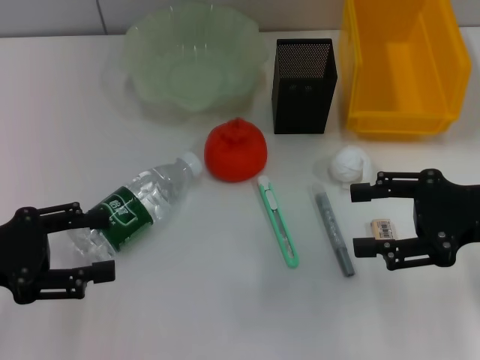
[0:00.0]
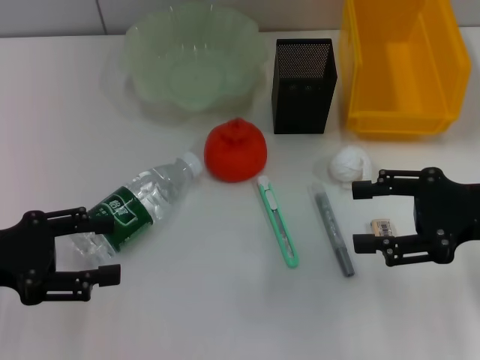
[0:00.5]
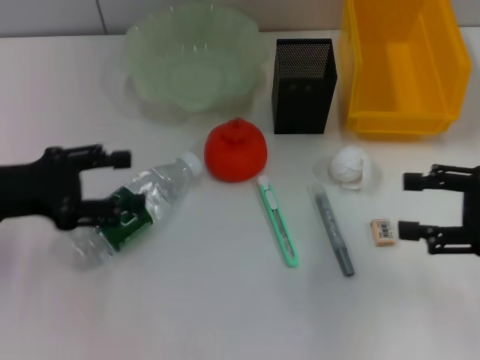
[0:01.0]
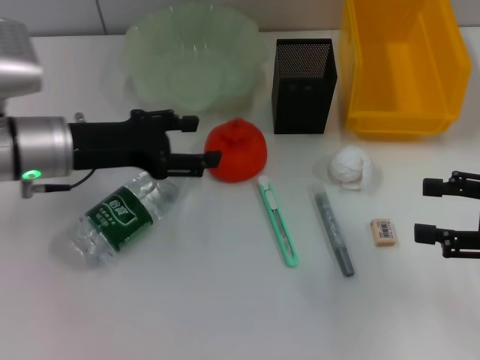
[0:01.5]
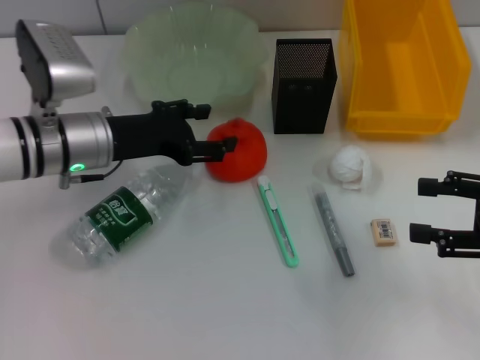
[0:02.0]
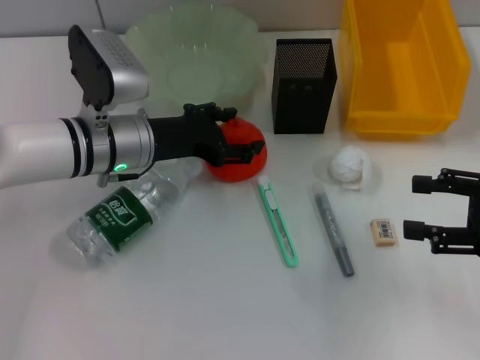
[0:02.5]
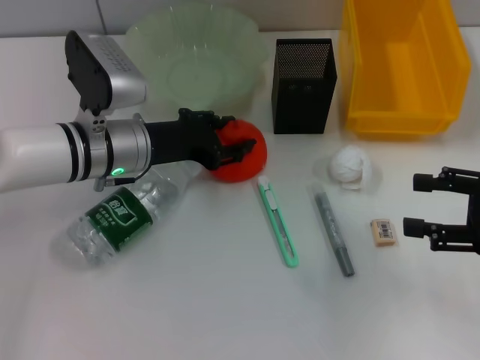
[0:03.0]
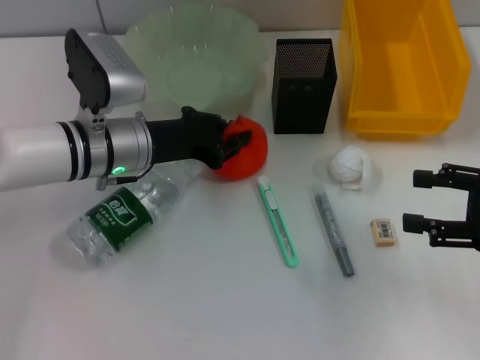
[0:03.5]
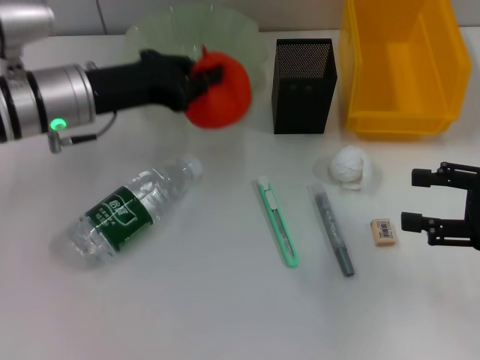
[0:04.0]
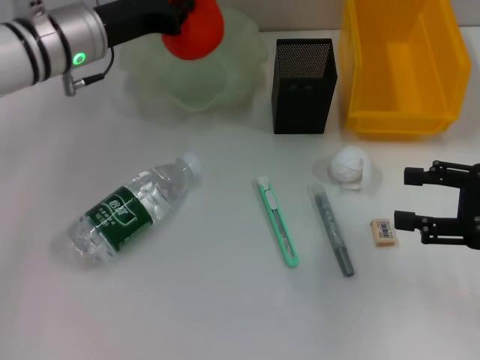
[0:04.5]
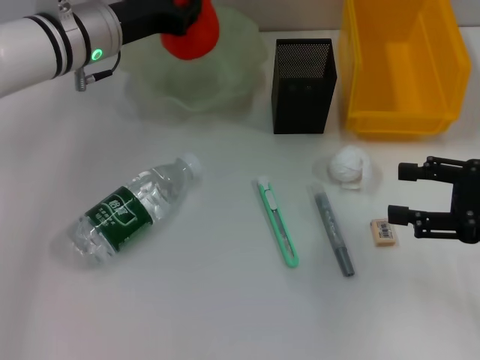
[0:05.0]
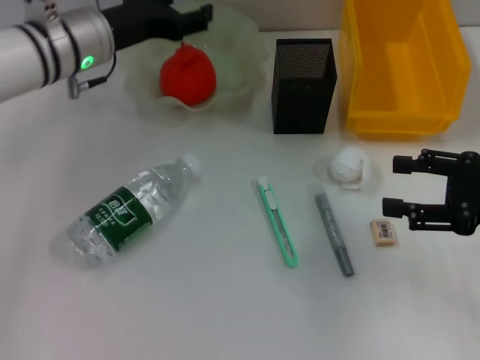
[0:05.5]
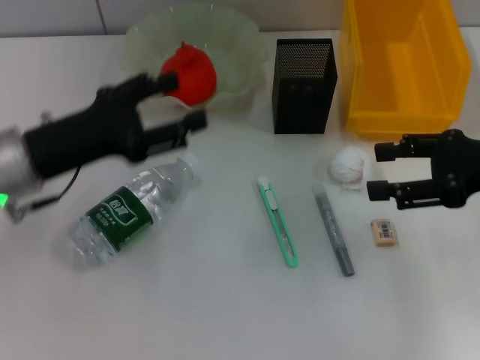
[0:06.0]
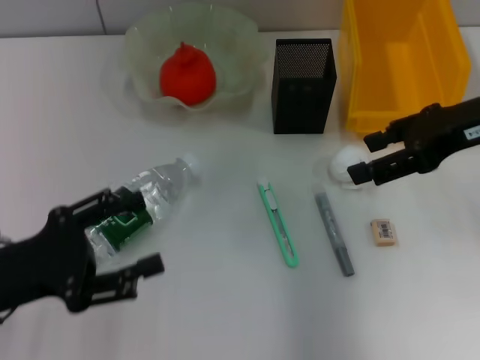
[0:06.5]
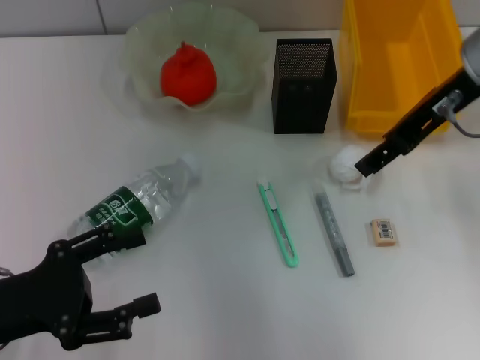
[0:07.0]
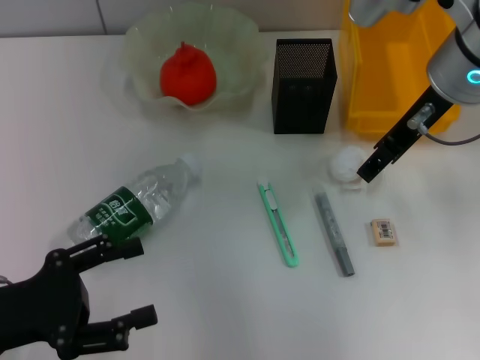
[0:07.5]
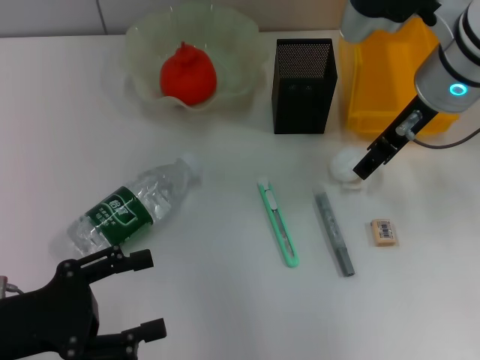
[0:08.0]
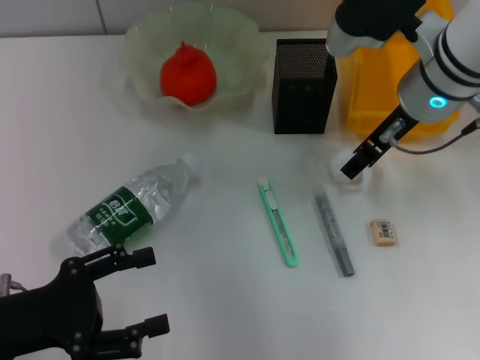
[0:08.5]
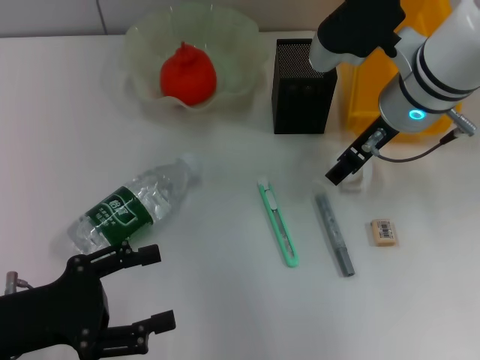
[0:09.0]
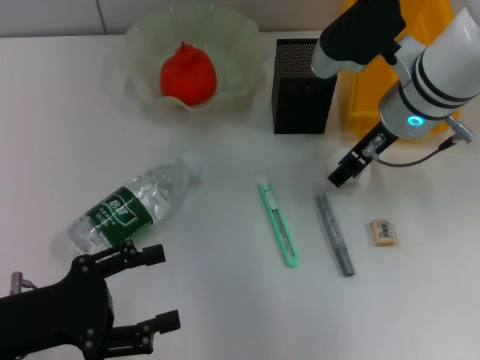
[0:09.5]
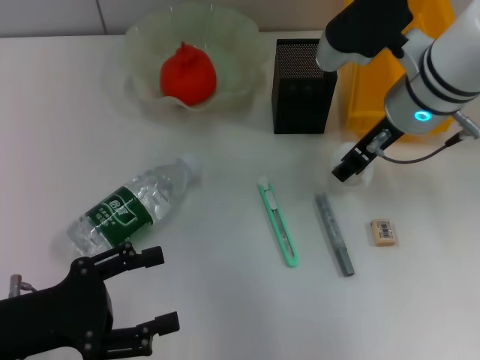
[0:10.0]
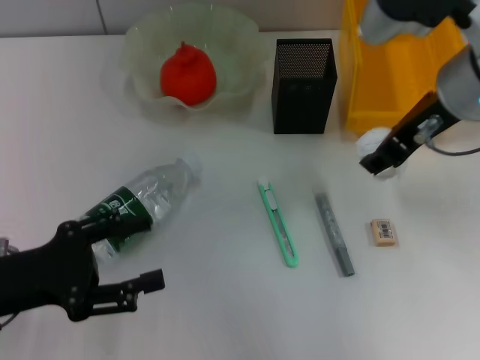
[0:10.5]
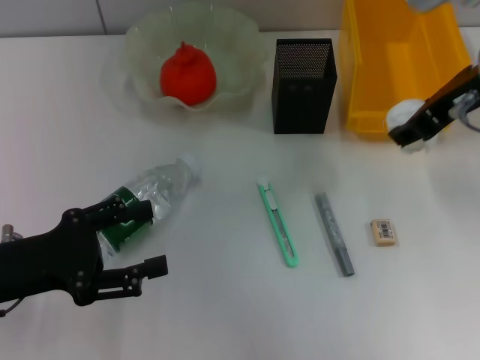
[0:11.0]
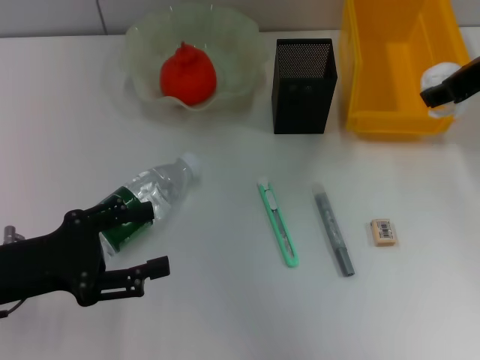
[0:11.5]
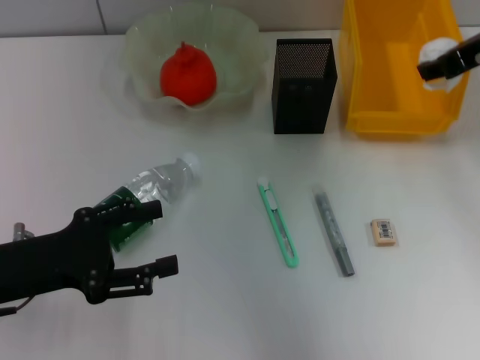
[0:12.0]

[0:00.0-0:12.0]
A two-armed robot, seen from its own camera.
Step, 0.0 to 3.0 s: Grab the orange with the left hand.
Step, 3.5 to 5.0 s: Place the orange into the fruit bowl with the left hand.
Step, 5.5 to 9.5 s: Grab the paper ball with the right hand.
0.0 to 2.0 s: The left gripper goes approximately 20 cm to the right and forward, while the right gripper heads to the right, covering some 5 cm.
2.0 to 4.0 s: The left gripper closes its fingers.
4.0 to 6.0 s: The right gripper shifts by roughly 5 cm, while the left gripper shifts roughly 10 cm backward, and opens its fingers.
6.0 to 8.0 s: The right gripper shifts approximately 15 cm to the left and forward; the left gripper goes approximately 10 cm backward.
8.0 to 10.0 s: The grippers stay close to where they were, moving slightly.
10.0 to 12.0 s: The right gripper is displaced to the right and upward by some 10 cm.

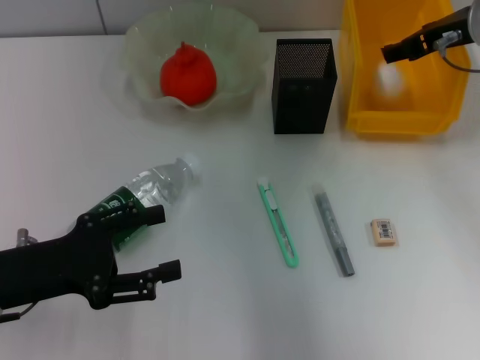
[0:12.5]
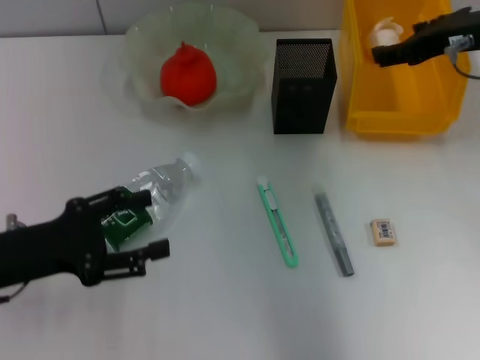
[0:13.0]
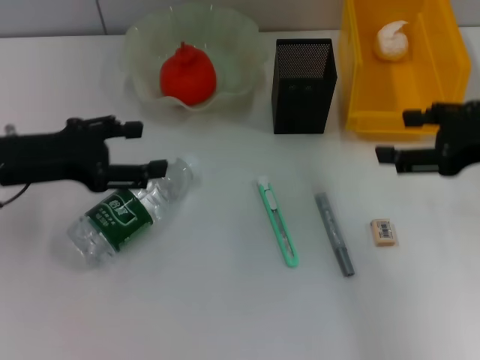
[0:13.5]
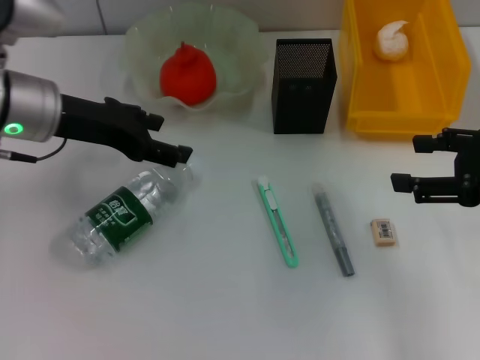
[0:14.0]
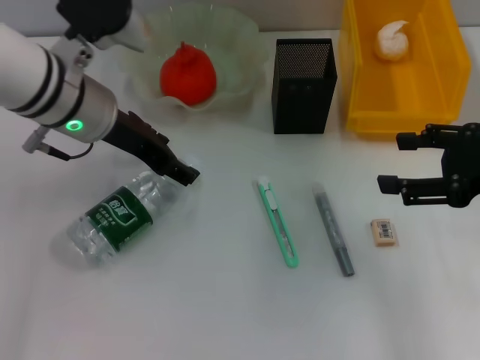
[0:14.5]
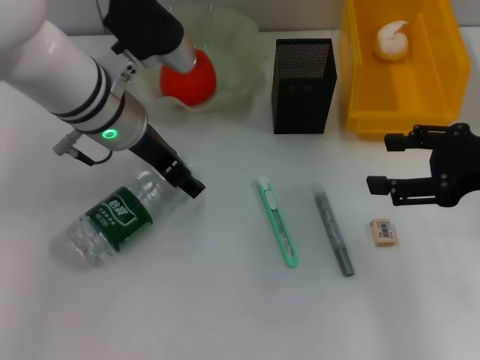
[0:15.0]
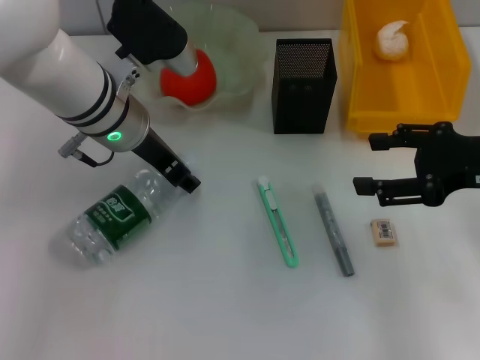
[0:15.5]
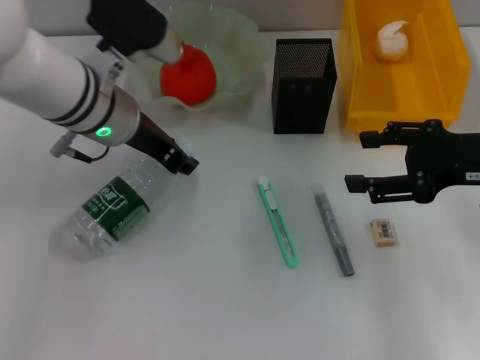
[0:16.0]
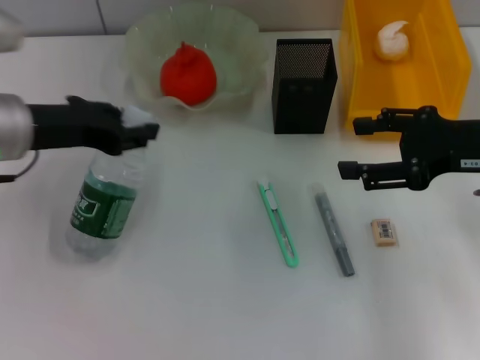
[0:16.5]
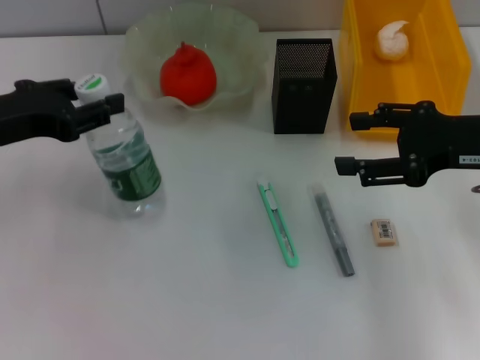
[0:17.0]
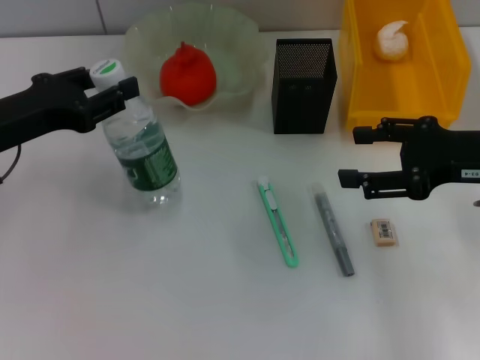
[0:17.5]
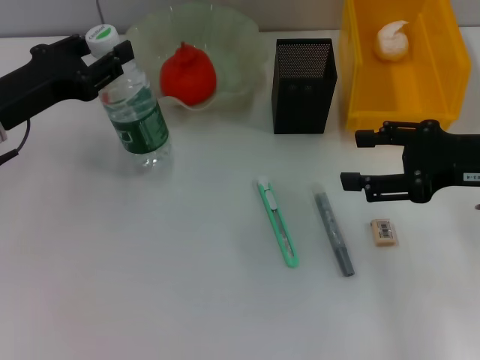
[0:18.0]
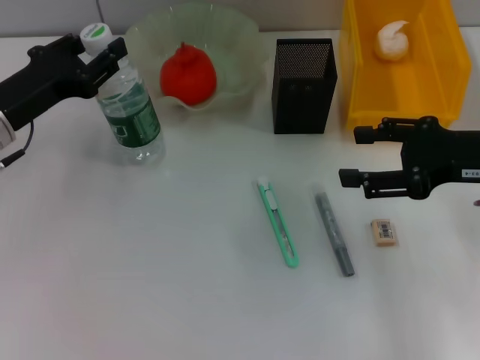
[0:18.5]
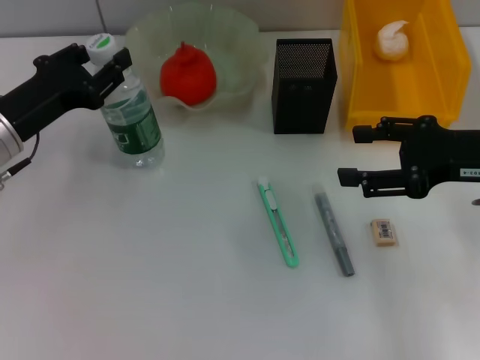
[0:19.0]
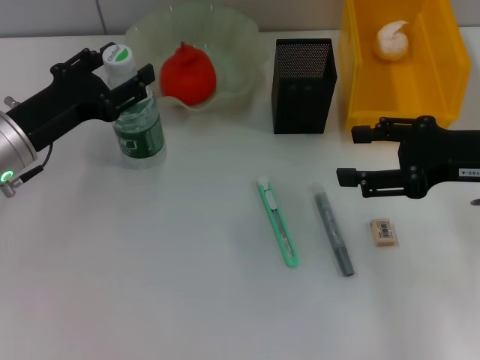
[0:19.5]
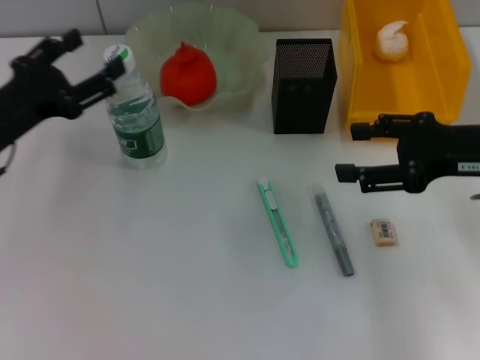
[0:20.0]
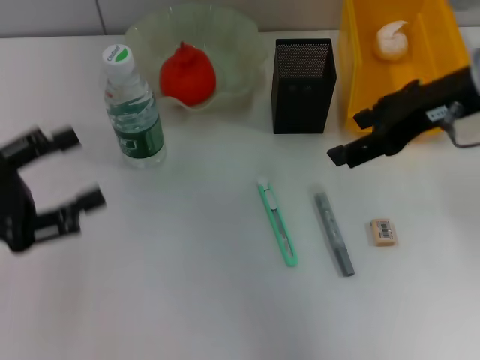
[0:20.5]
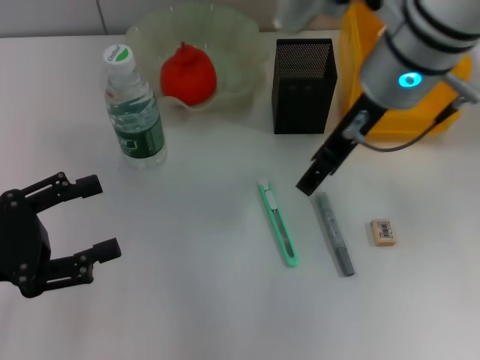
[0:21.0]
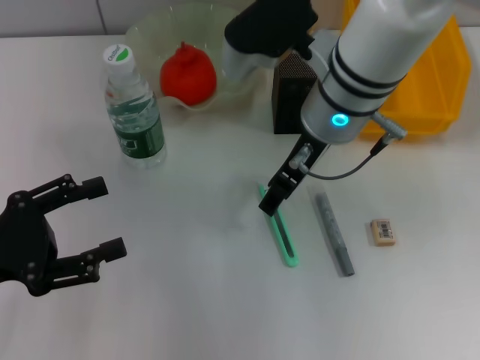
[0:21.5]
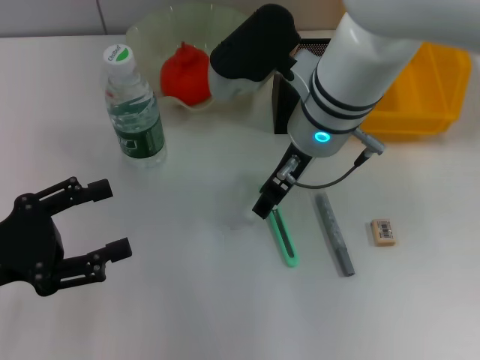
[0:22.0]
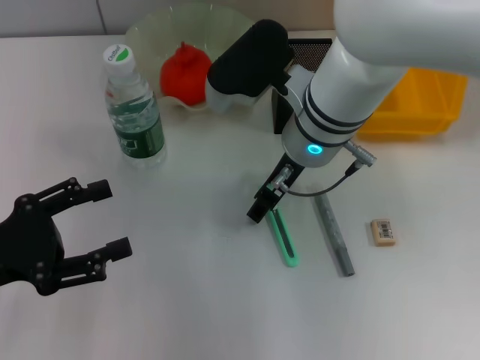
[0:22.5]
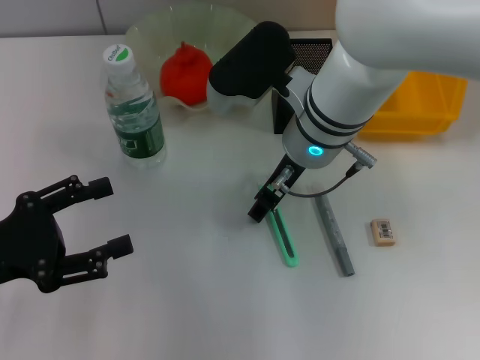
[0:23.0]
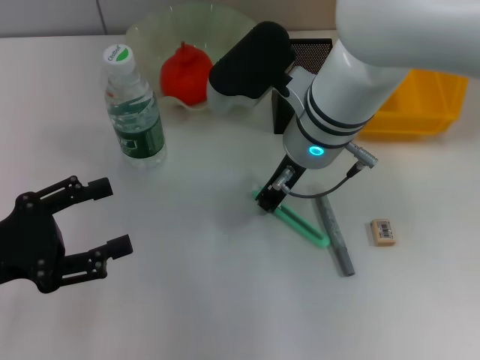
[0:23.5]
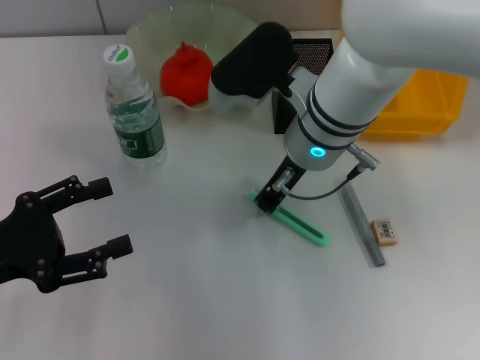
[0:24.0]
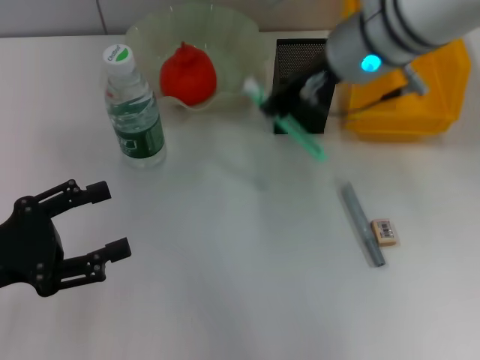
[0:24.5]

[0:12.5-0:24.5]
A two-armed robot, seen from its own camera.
Step, 13.0 to 15.5 s: Grab the water bottle with the left hand.
Step, 16.0 to 19.5 s: Place the water bottle on the table with the left hand.
Step, 20.0 to 23.5 s: Grab the blue utility knife with the right hand.
12.5 to 14.5 s: The right gripper goes approximately 15 cm backward and to the right. The left gripper heads forward, to the right and upward, covering approximately 20 cm.
14.5 to 16.5 s: The left gripper moves to the left, about 5 cm, and closes its fingers.
16.5 to 18.5 s: The left gripper shifts about 5 cm downward and to the left.
18.5 to 20.5 s: The left gripper moves backward and to the left, roughly 10 cm, and opens its fingers; the right gripper is displaced upward and to the left by about 10 cm.
20.5 to 22.5 s: The right gripper is displaced to the left and downward by roughly 20 cm.
22.5 to 24.5 s: The right gripper goes some 10 cm upward, and closes.

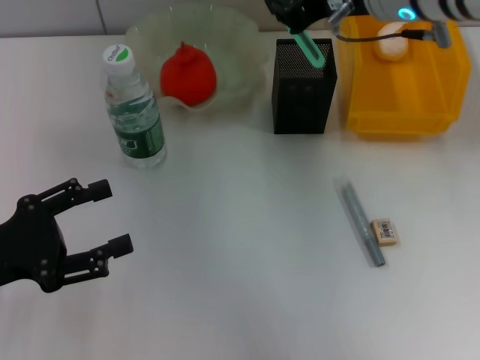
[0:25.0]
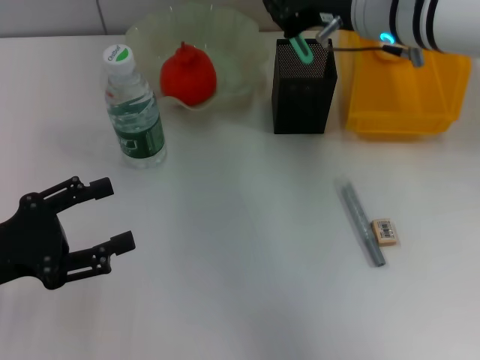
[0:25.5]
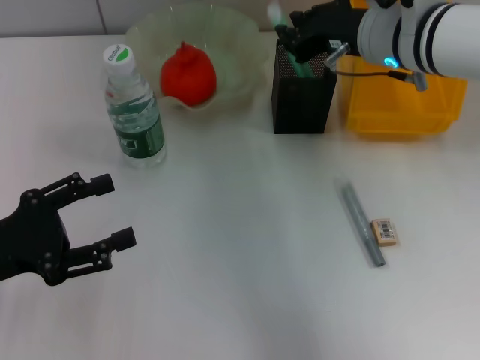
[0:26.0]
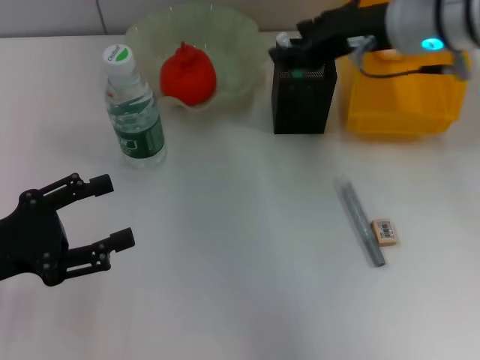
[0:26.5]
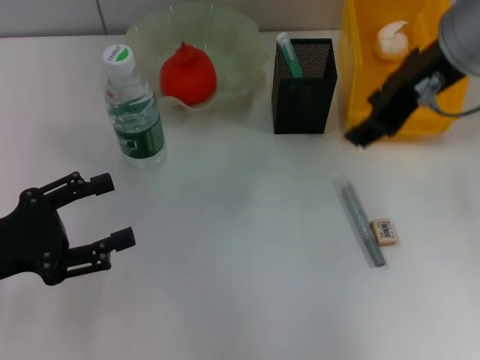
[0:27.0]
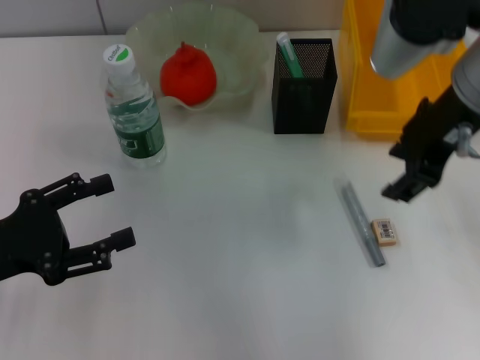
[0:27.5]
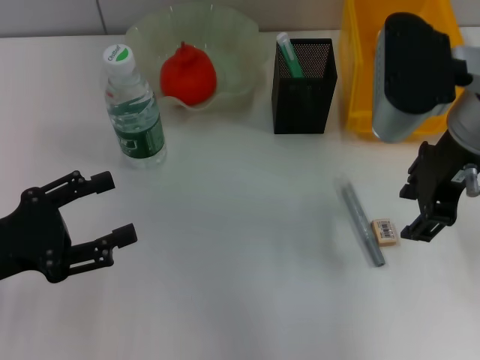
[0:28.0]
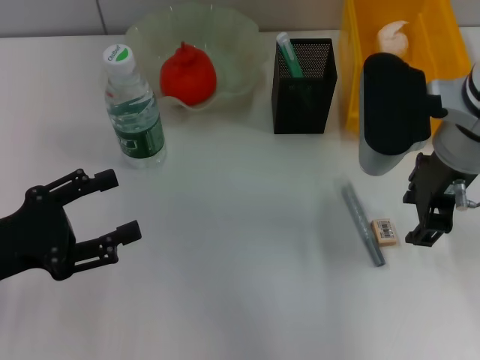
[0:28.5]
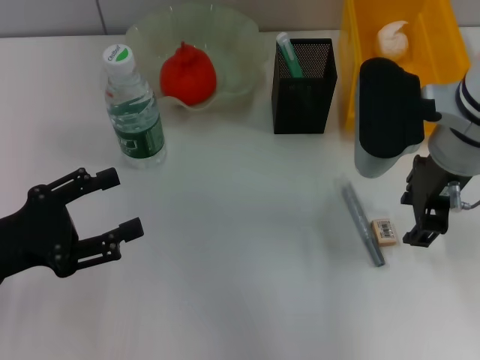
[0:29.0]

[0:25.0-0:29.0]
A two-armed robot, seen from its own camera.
25.0 to 27.0 s: The right gripper moves approximately 5 cm downward and comes back, and opens its fingers.
27.0 to 29.0 s: The right gripper moves downward, roughly 10 cm.
